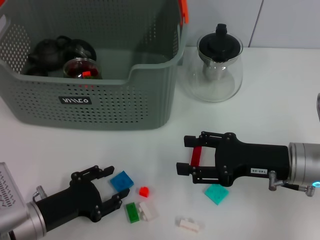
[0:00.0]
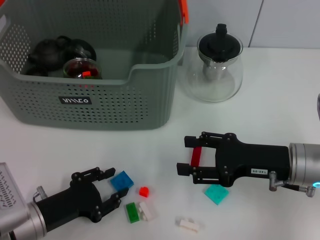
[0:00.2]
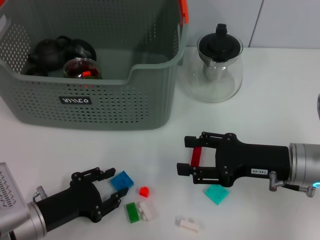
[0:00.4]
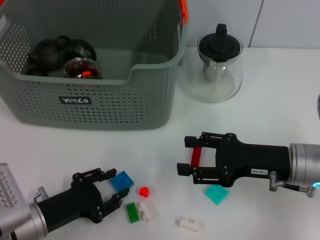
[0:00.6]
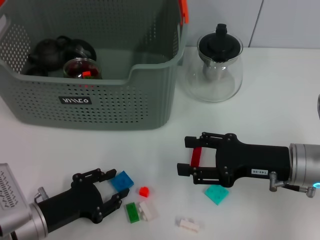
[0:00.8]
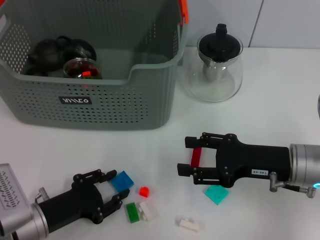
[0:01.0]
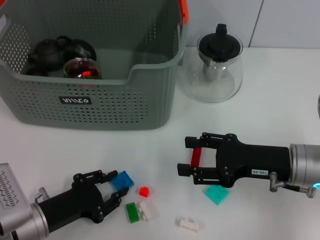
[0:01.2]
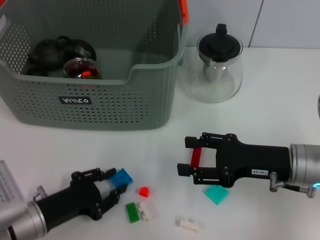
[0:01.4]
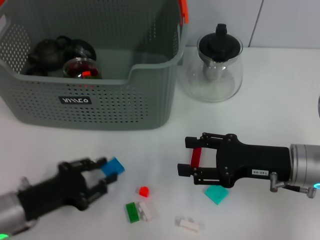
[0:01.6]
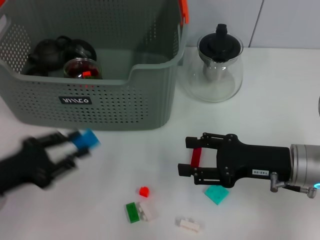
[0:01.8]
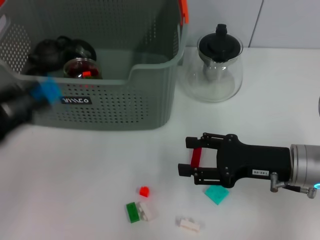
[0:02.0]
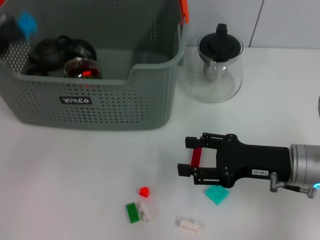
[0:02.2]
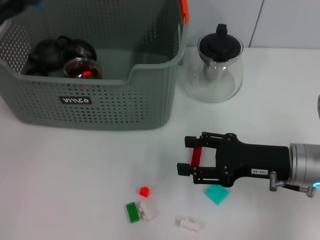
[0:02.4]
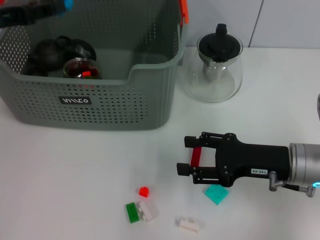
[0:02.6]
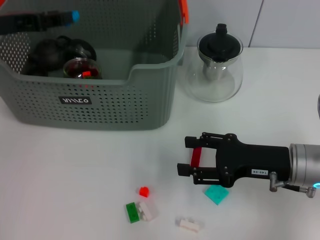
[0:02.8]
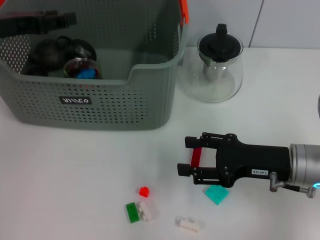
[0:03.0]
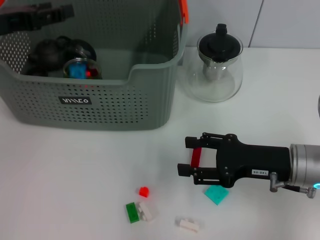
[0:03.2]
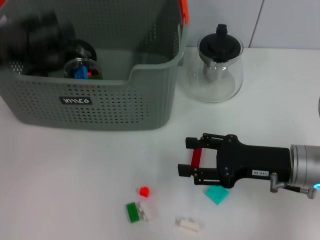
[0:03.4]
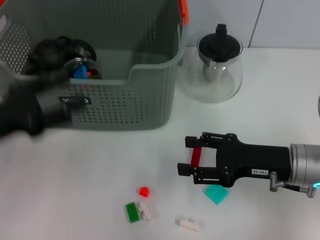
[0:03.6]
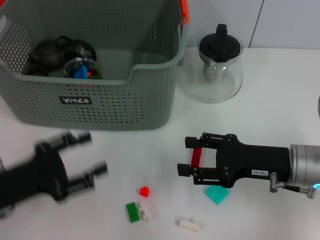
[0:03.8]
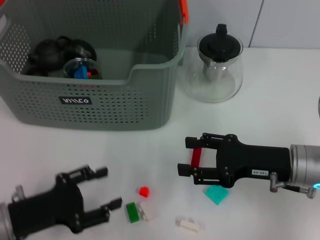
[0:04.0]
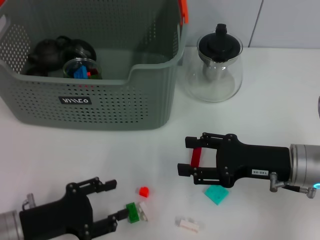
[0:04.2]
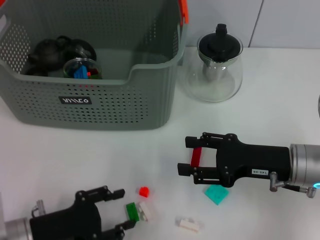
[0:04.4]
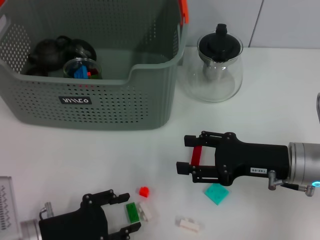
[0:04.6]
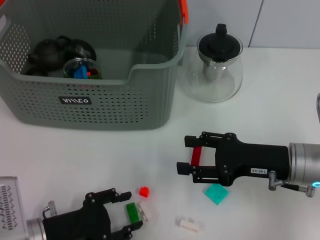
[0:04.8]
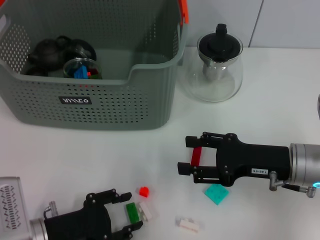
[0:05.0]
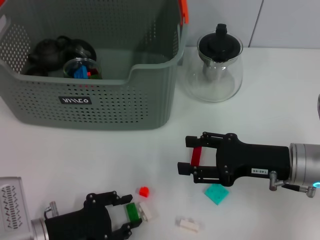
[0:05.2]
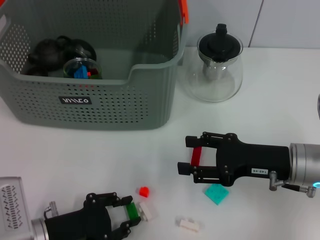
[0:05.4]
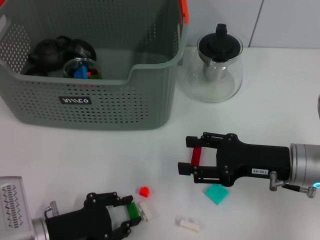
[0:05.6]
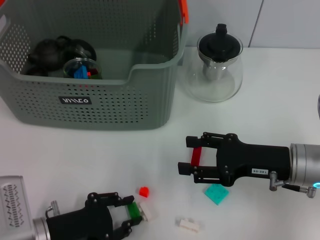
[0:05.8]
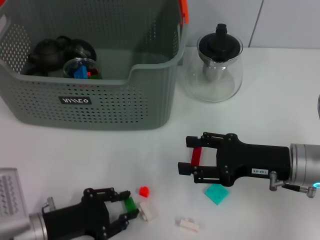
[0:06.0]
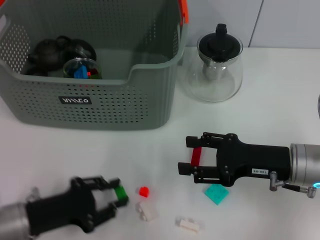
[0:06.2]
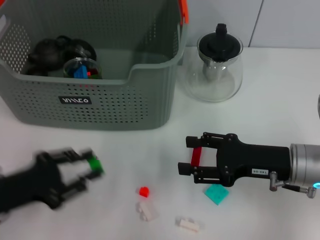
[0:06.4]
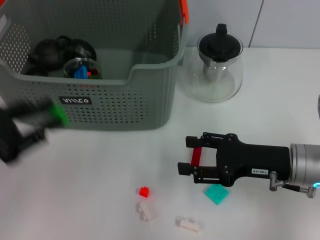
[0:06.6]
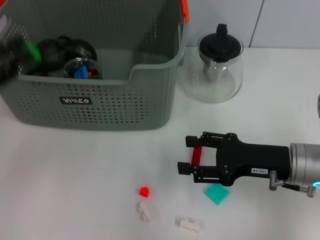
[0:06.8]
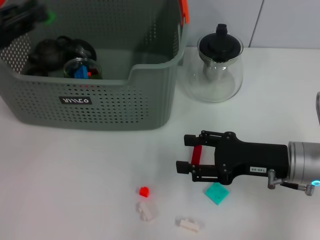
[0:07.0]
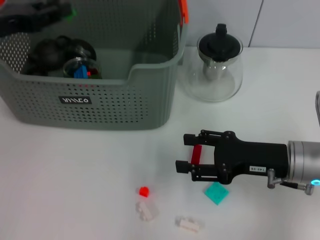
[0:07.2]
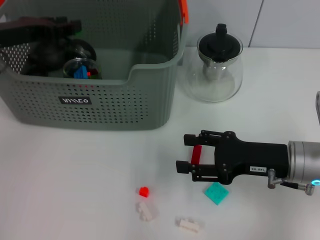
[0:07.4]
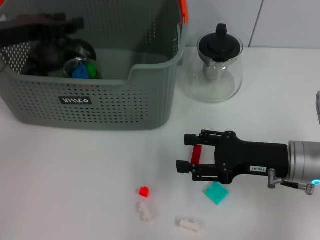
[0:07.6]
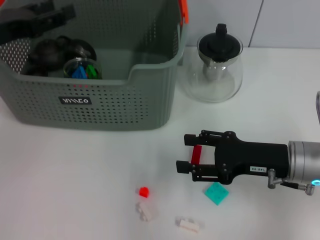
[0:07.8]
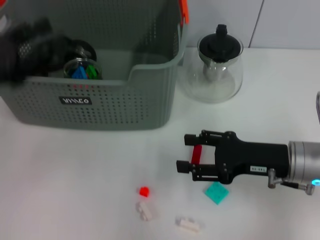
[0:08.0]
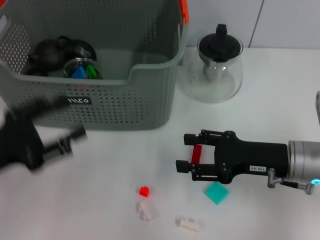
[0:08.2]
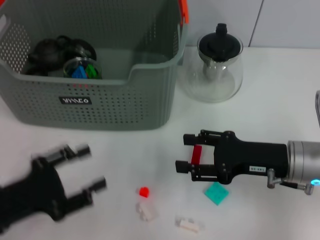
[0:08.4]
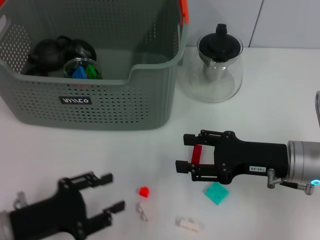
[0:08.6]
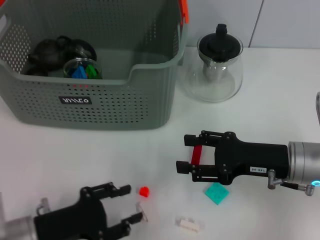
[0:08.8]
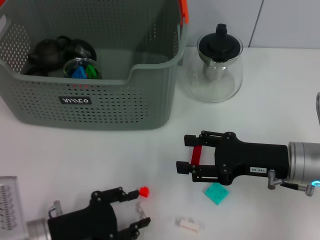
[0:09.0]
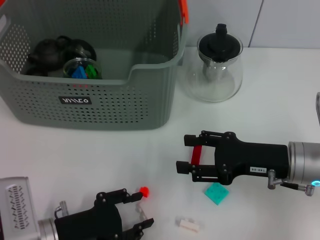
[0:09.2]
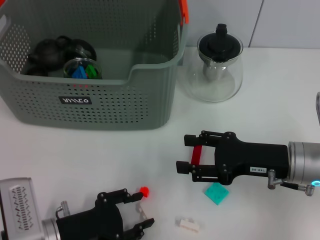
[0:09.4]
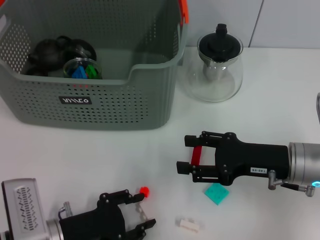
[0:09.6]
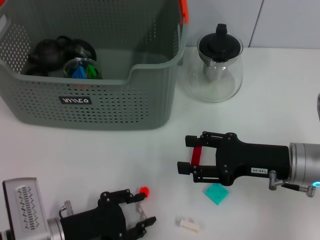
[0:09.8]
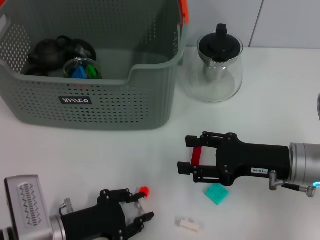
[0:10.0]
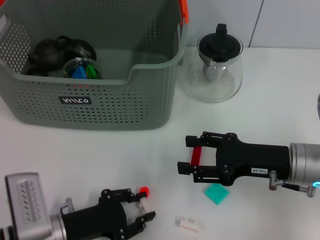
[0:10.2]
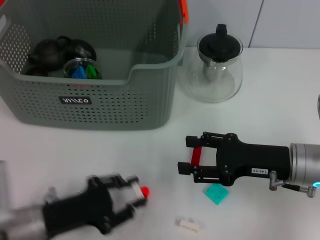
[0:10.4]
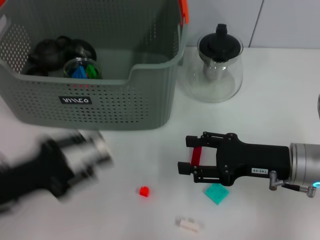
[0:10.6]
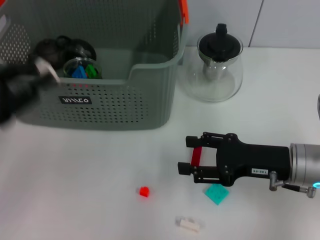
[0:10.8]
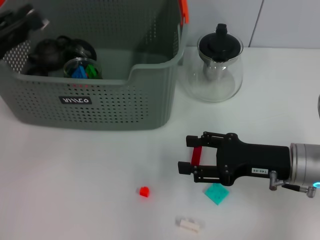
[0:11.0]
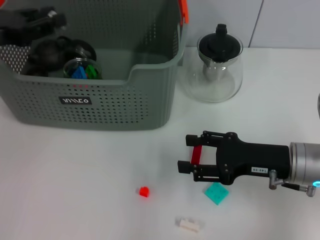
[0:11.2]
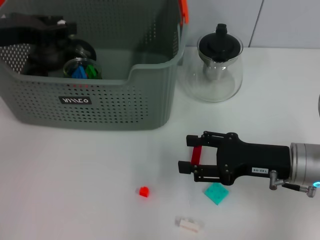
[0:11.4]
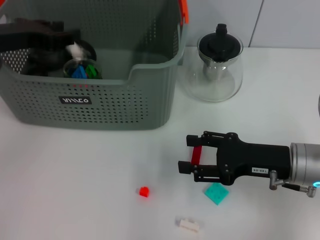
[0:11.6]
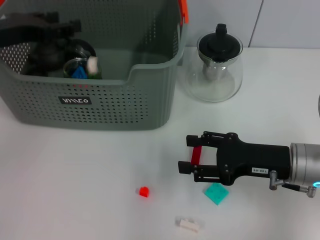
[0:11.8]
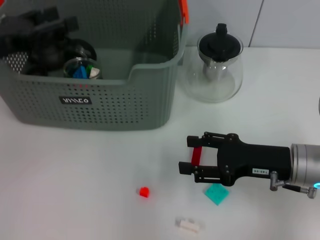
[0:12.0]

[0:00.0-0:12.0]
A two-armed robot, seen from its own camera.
Task of the whole recording: pick up the teacup on the table and place it into the storage bin, pick up the block on the table and place it into the storage bin.
Step, 1.4 to 3.2 s: Place the dark blue block in the storage box with left gripper.
Step, 3.4 to 5.6 s: Grasp the green block with left gripper.
Step, 5.8 to 7.6 s: Place the green block in the storage box with left gripper.
Step, 7.8 to 10.2 s: Grasp the white block with left gripper.
Step, 10.4 to 11.8 s: Place the white block in the storage box with left gripper.
0.0 to 1.6 s: The grippers stay close to where they were, moving slightly.
1.6 to 3.0 s: The left gripper moves upward and forward, some 25 cm.
3.0 to 4.4 s: The left gripper is displaced downward and backward by approximately 25 cm.
4.4 to 6.0 s: The grippers make only small movements.
6.0 to 7.6 s: The left gripper travels upward and forward by some 25 cm.
7.6 to 9.0 s: The left gripper heads backward and downward, covering approximately 25 cm.
9.0 to 10.4 s: The grippers move only a little.
10.4 to 12.0 s: The left gripper travels upward, forward and to the left by roughly 20 cm, and opens its fingers.

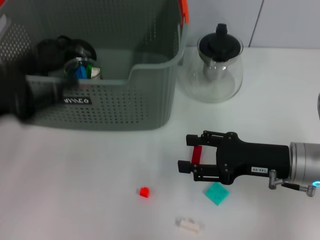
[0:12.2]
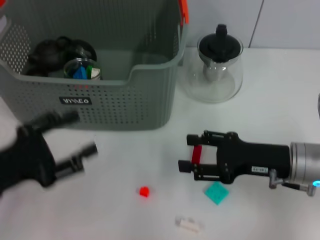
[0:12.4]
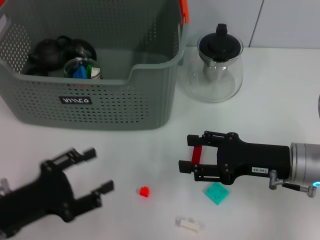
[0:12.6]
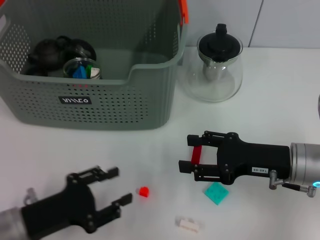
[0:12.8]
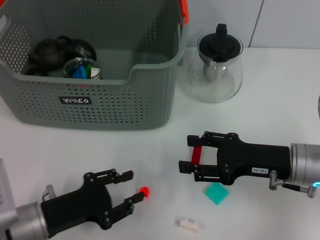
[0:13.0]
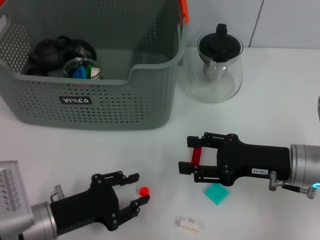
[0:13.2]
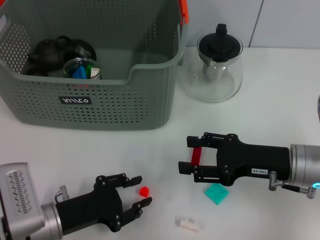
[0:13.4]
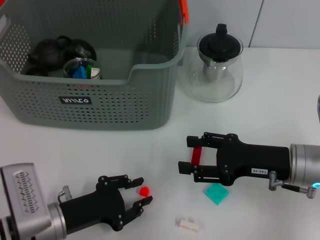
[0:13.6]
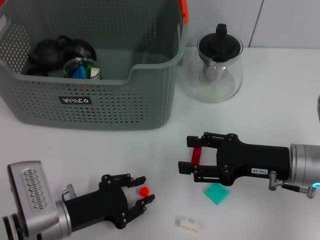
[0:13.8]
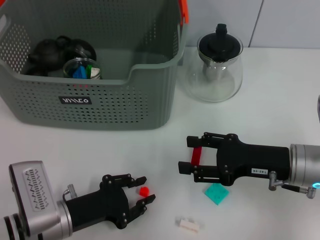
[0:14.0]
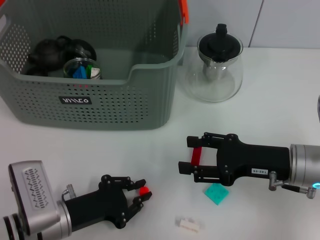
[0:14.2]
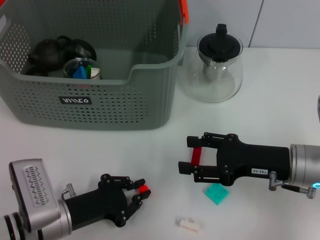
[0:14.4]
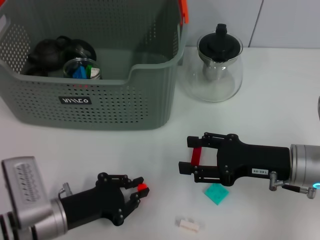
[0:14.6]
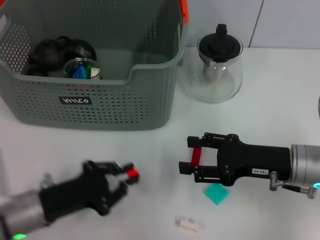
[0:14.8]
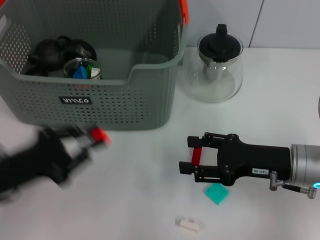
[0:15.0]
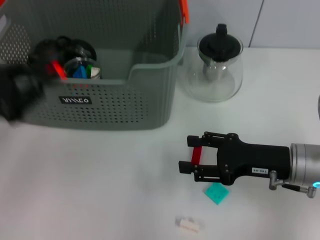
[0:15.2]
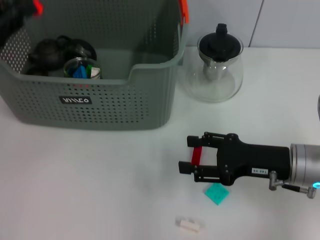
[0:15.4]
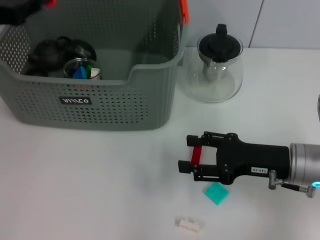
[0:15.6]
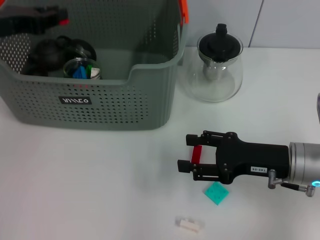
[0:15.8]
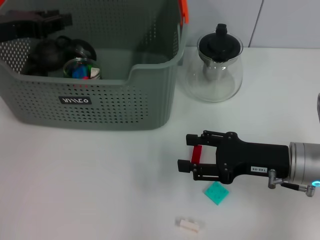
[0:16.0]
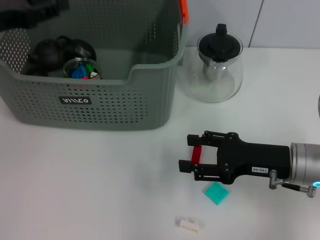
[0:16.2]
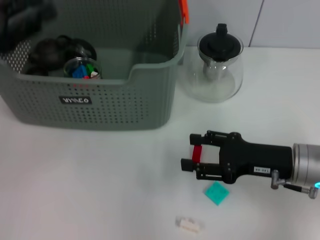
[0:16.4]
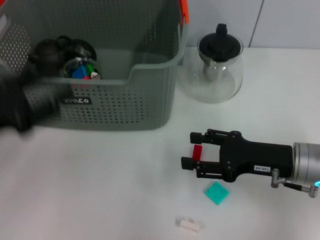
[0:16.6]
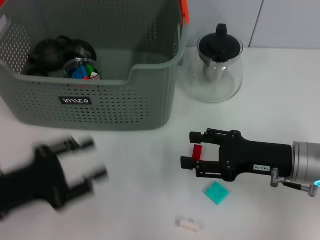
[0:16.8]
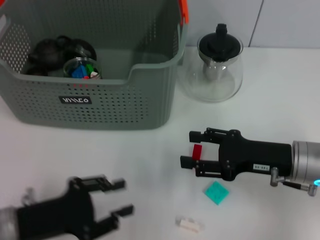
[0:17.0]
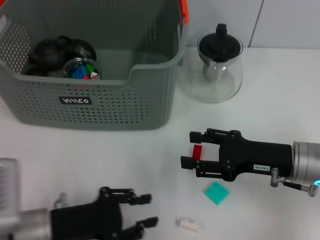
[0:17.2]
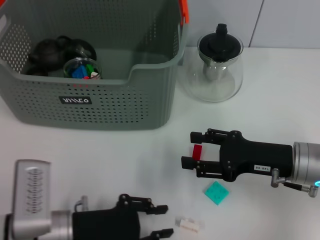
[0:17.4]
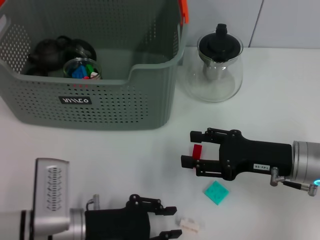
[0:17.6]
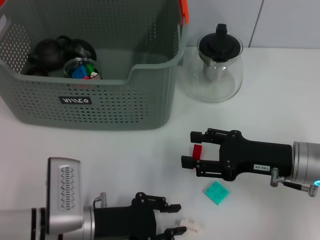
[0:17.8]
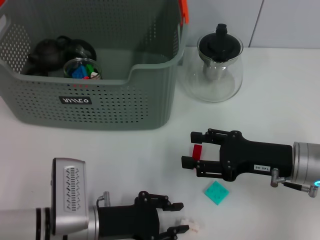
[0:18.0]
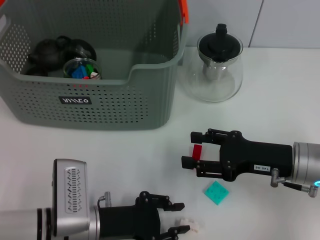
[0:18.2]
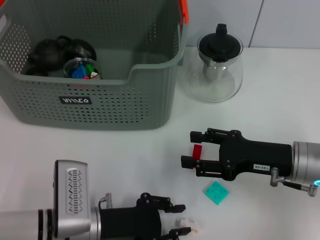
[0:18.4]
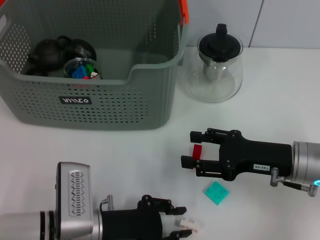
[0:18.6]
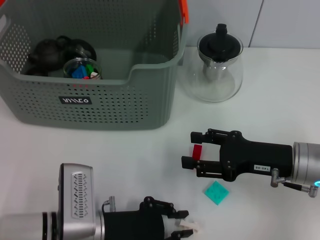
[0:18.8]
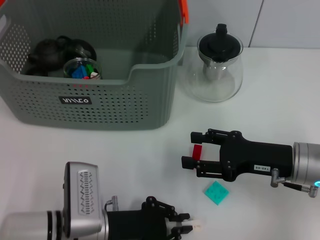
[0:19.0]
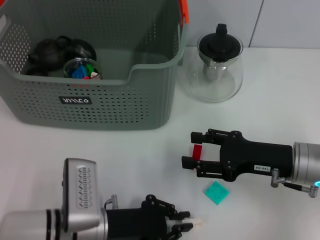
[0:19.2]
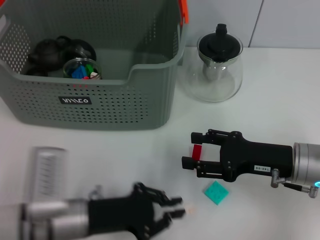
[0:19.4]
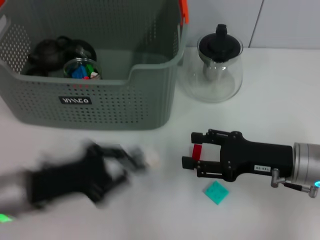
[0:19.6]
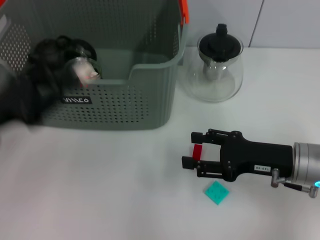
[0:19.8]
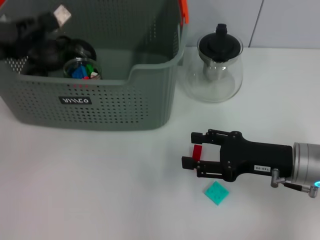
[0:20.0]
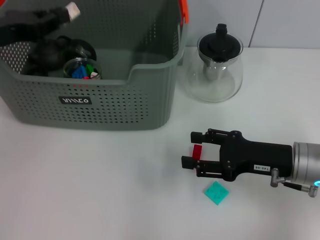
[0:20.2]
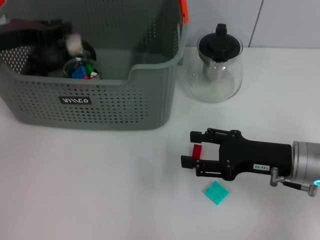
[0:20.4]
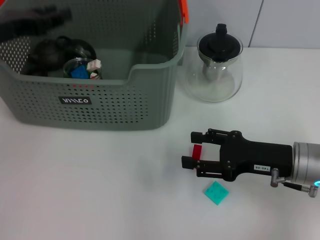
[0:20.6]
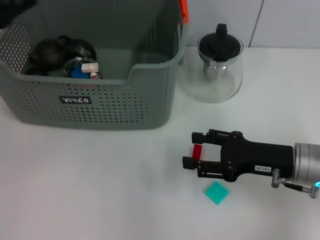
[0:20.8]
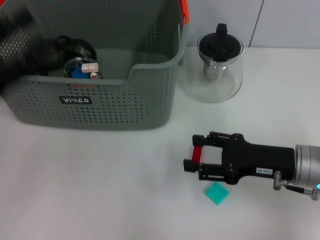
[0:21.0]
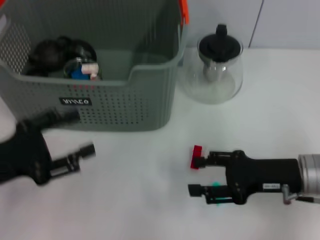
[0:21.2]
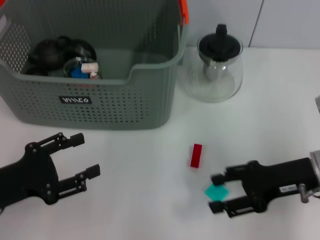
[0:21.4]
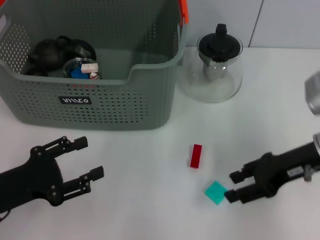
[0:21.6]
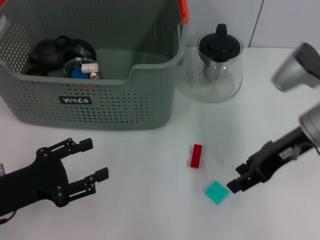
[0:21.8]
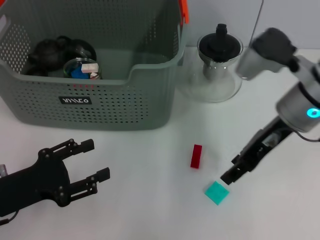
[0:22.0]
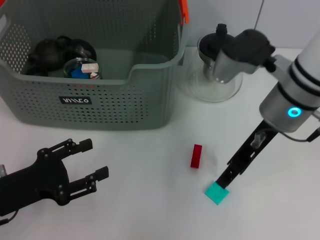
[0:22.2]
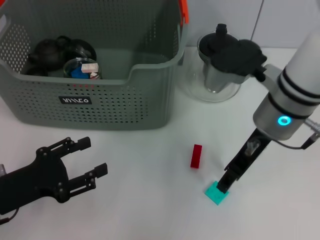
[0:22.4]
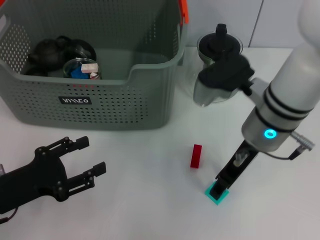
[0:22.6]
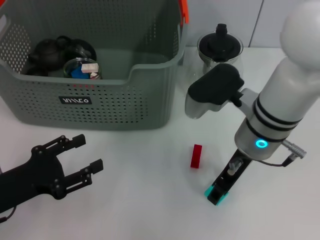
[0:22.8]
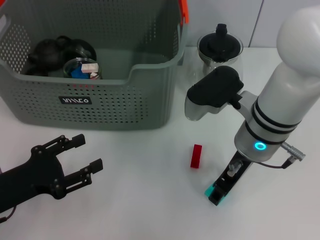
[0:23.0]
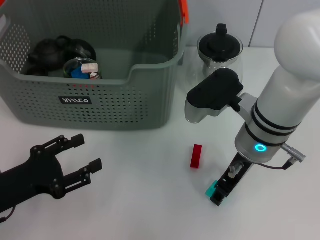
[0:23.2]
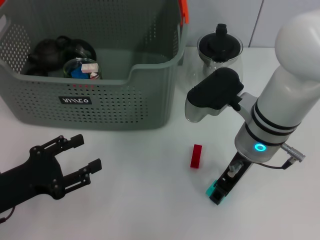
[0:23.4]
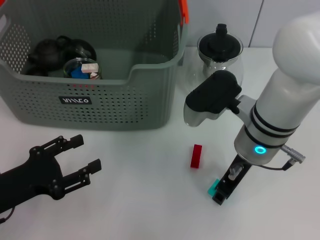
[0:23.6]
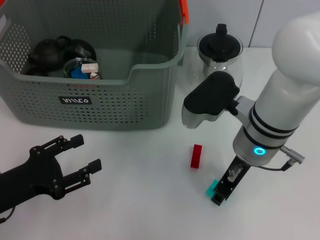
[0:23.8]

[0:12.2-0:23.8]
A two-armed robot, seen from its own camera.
Task of the whole recording: pick up the teacup on the table and place it into the storage bin, pick up the block on the table and place it into the storage bin.
Step, 12.2 to 14.4 s: Grasp the orange block with left gripper.
Step, 14.6 to 16.0 s: Place the orange block in the storage box with left gripper.
Step, 16.2 to 19.0 s: Grasp the white block with left gripper.
Step, 19.4 to 20.4 s: Place the white block in the storage box with left gripper.
Step, 20.8 to 23.6 s: Grasp the light blue block with right gripper.
12.2 to 13.6 s: The left gripper shifts about 15 cm downward and to the right, and closes its fingers.
13.6 to 15.0 s: The left gripper heads upward and to the left, covering approximately 10 cm.
15.0 to 16.6 s: The left gripper moves about 15 cm forward and comes back, and opens up.
16.6 to 18.0 s: The left gripper goes some 20 cm to the right and downward.
18.0 to 19.4 s: There are only small adjustments of the grippers.
19.4 to 21.0 s: The left gripper goes some 20 cm upward and to the left, and opens up.
21.0 to 22.4 s: The left gripper is displaced downward by about 10 cm. Meanwhile the right gripper moves upward, to the left and forward, some 15 cm.
22.4 to 23.8 s: The grippers stay close to where they were, moving slightly.
